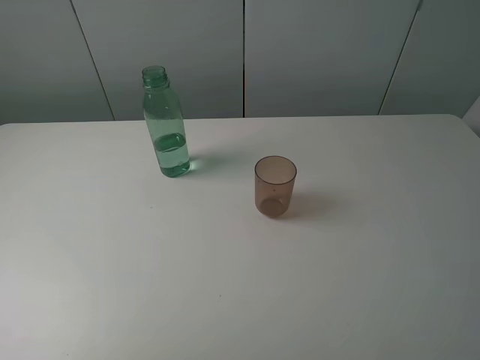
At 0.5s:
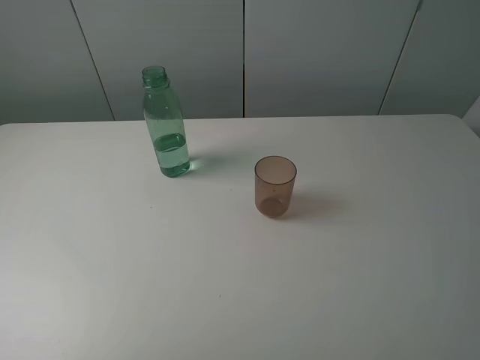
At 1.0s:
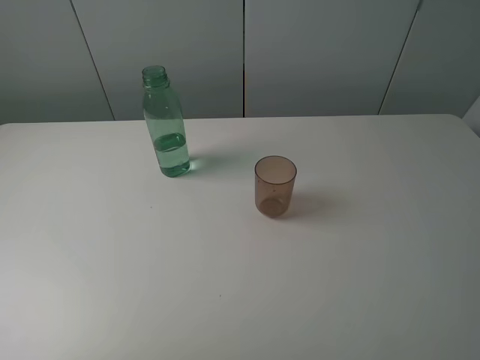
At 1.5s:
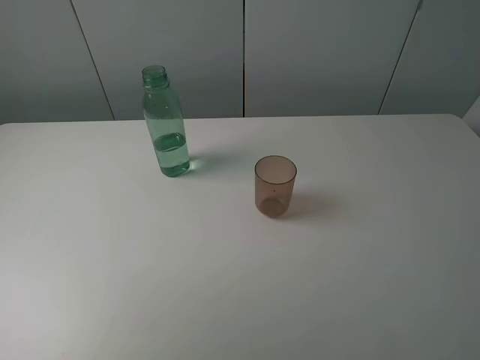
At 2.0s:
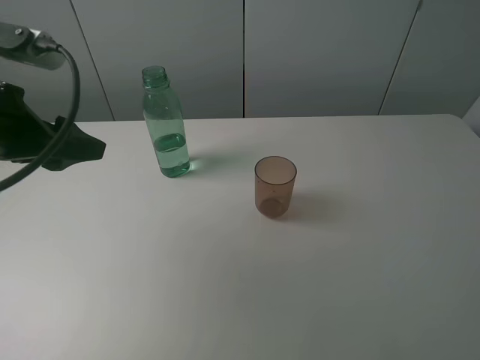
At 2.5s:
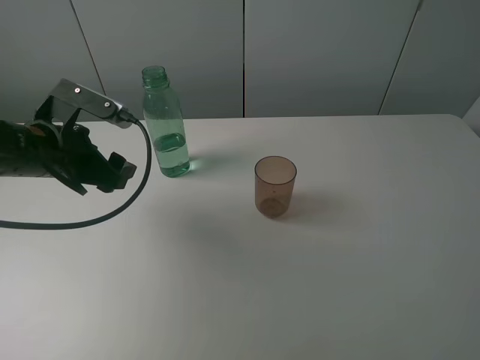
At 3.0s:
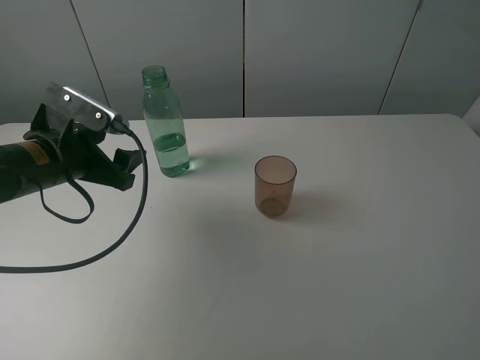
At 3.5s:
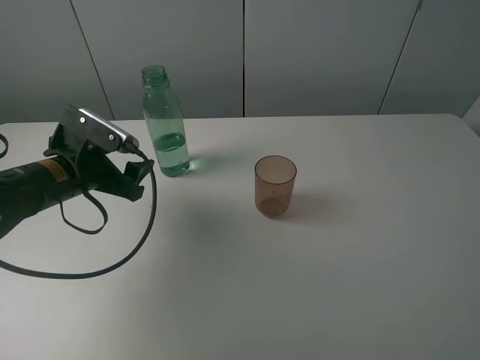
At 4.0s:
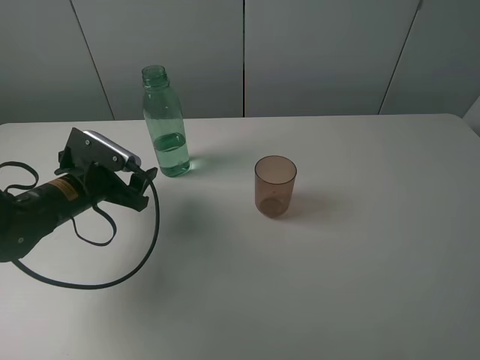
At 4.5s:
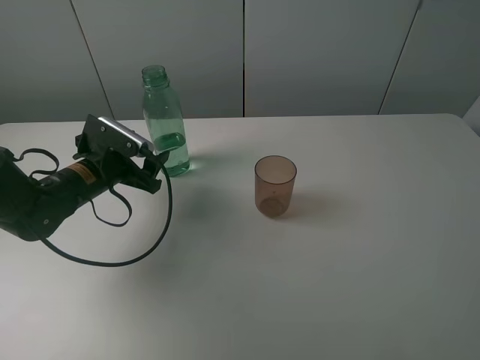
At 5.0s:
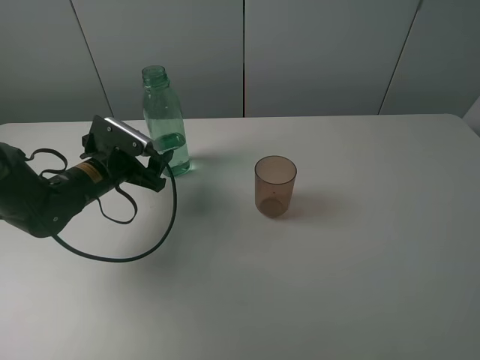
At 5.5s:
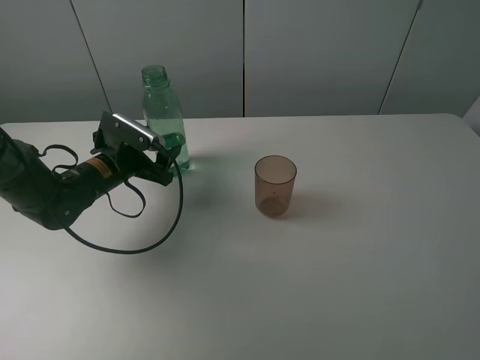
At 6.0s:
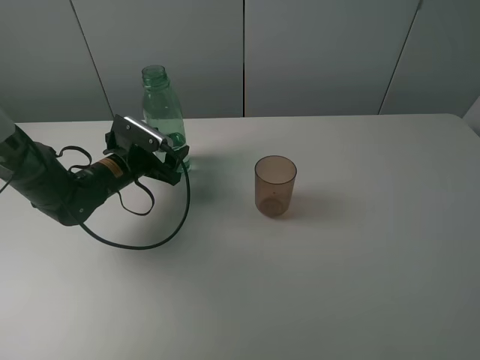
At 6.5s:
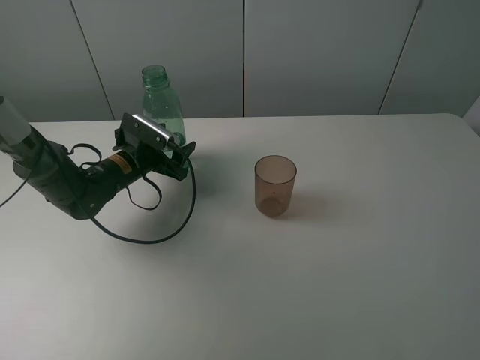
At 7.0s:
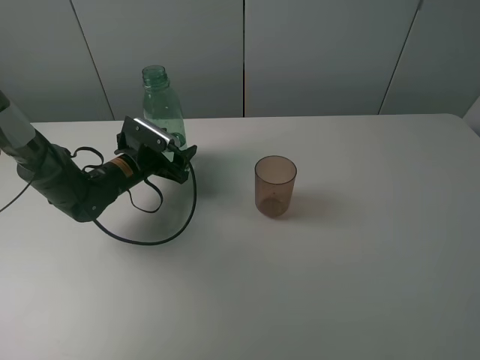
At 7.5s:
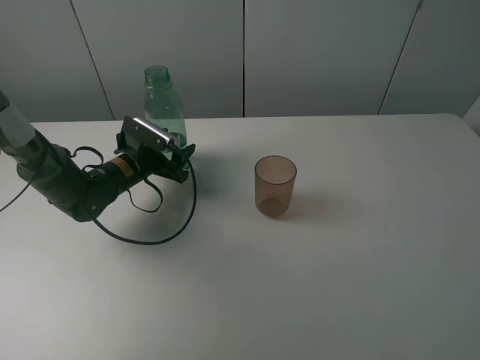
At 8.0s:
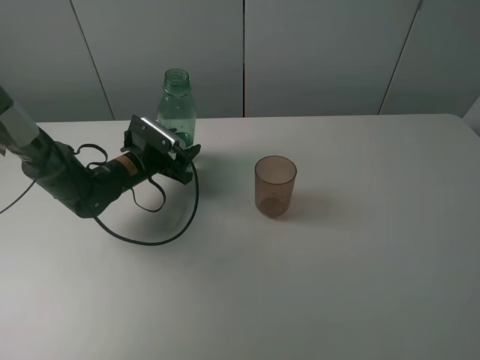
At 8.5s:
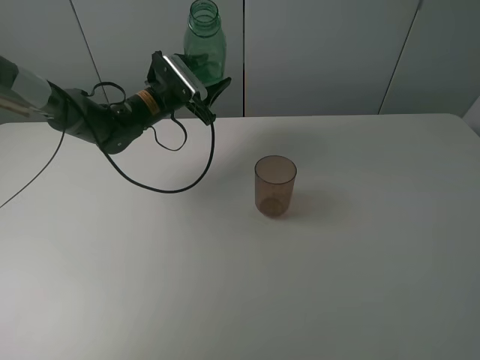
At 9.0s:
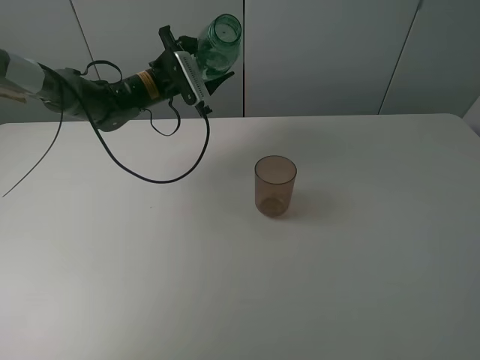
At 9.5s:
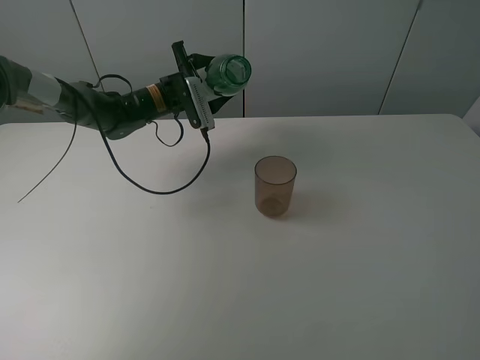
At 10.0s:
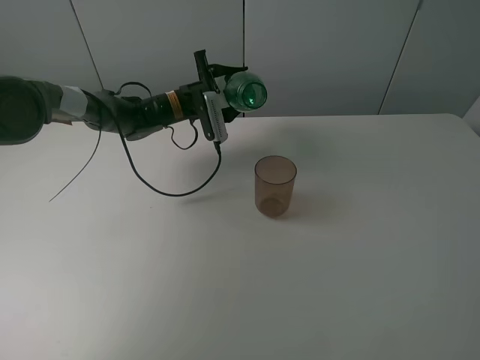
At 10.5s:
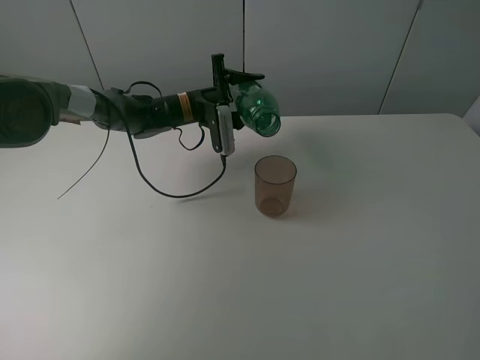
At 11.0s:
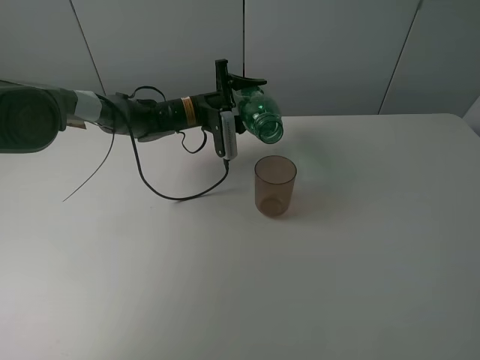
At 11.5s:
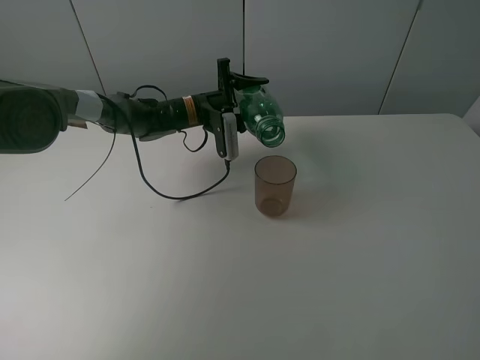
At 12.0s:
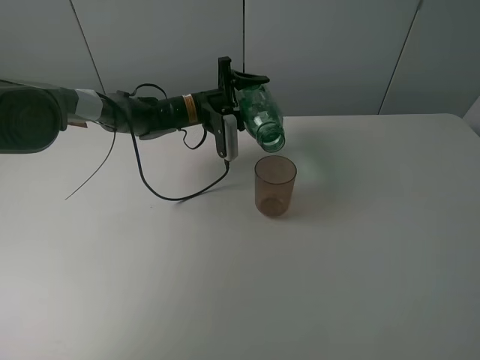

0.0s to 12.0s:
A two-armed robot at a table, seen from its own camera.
Task of the whole recording: pick up the bottle filled with water and pour it into the pink cup.
Step, 0.0s to 7.5s: Grasp the green bottle with the left gripper.
0.0s to 2.0s: The left gripper goes roughly 25 cm forward.
2.0s to 4.0s: The left gripper moves downward, roughly 15 cm.
4.0s to 6.0s: The left gripper heads forward, covering about 10 cm.
6.0s to 8.0s: The left gripper closes up.
8.0s to 10.0s: The left gripper shifts some 15 cm forward, to the right and upward.

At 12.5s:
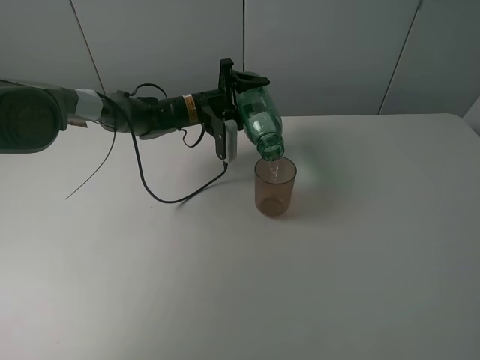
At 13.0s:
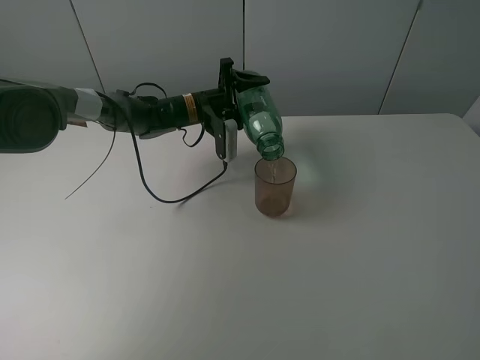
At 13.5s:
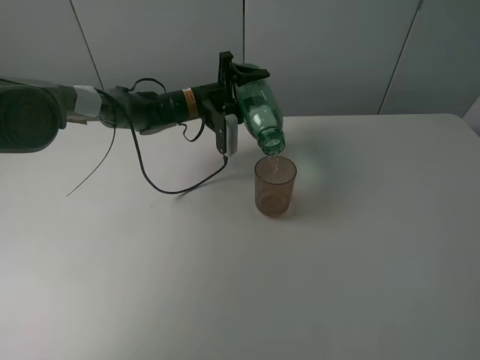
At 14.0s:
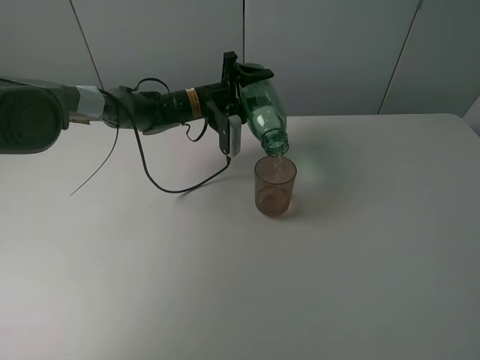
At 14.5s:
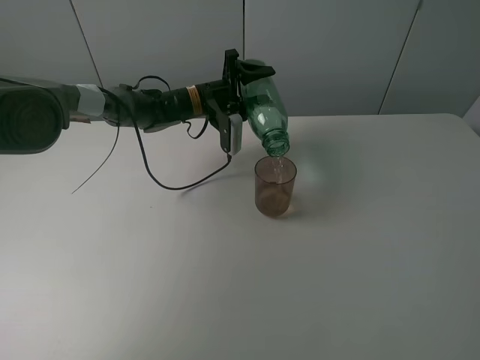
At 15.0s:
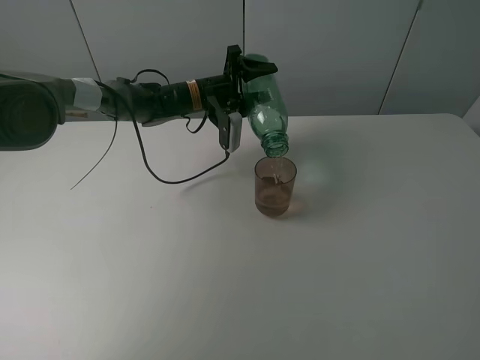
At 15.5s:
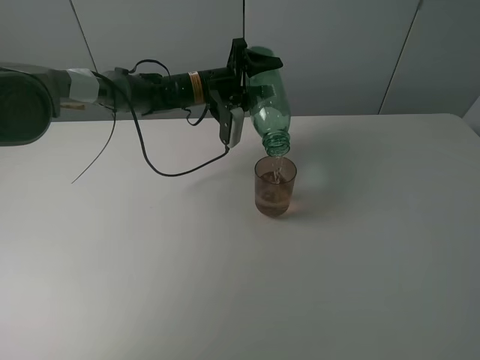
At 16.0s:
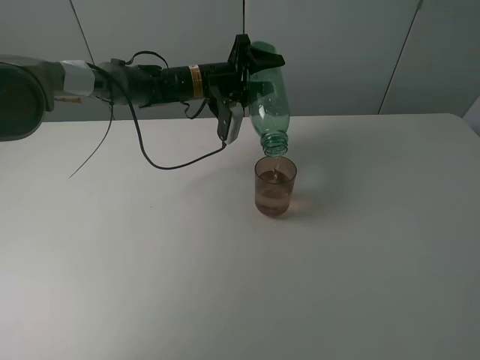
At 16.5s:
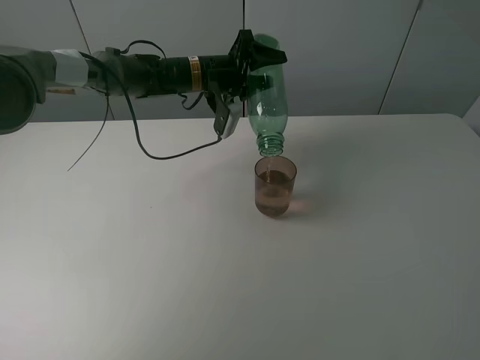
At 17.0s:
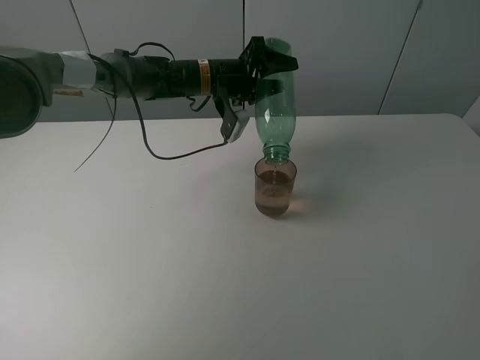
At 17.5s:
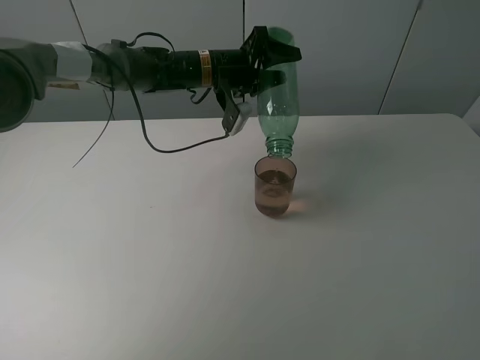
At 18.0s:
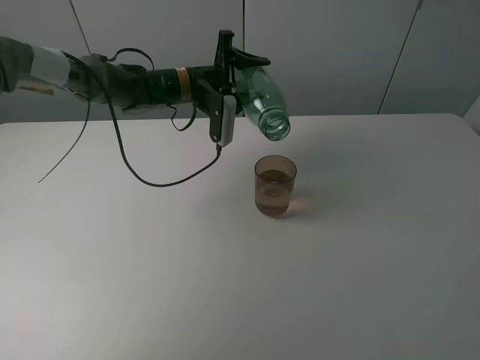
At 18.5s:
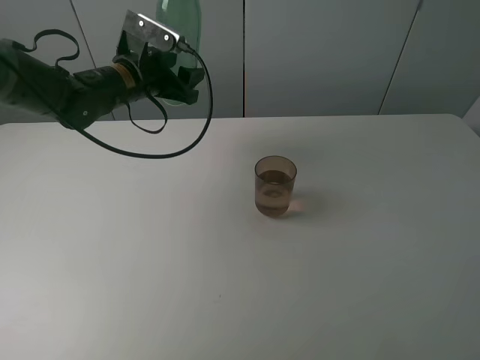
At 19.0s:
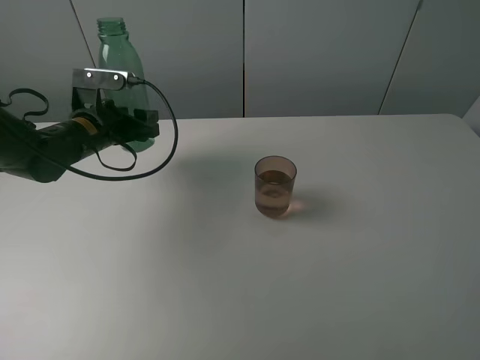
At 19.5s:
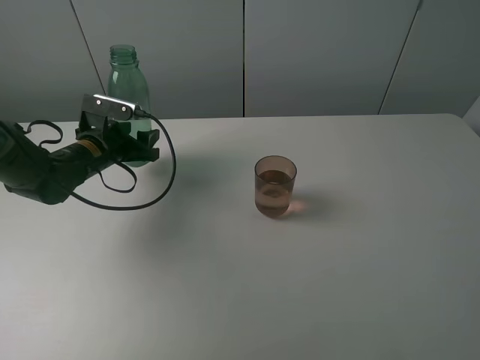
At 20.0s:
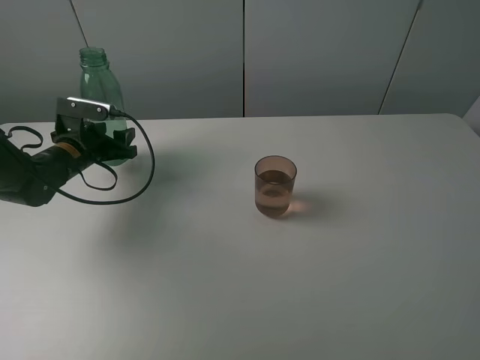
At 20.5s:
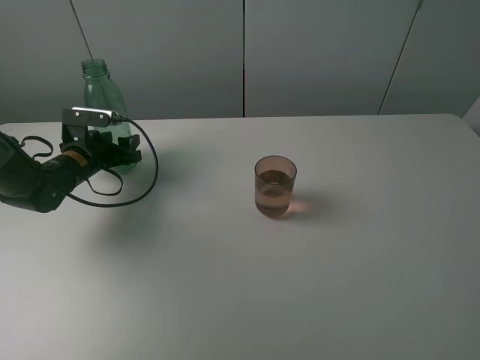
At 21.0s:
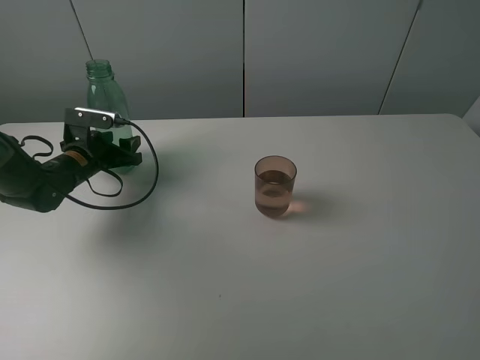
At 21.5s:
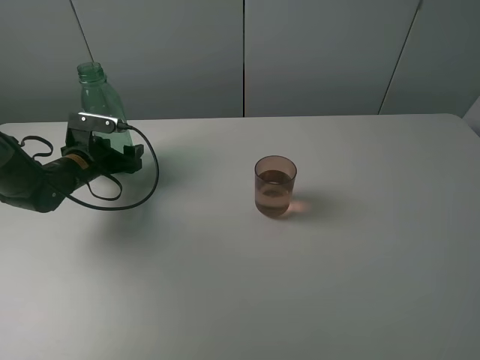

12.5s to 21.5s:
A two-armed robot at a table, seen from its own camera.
Task of the whole recording: pick up the bottle filled with water and pour it into the pink cup.
Step, 12.5s to 17.5s: Pour water from green bottle to pink cup with the left gripper.
12.5s to 14.5s: There are only small adjustments of the grippers.
14.5s to 17.0s: The left gripper shifts about 5 cm upward.
17.0s to 19.5s: The left gripper is displaced to the left, backward and downward by roughly 25 cm.
19.5s to 21.5s: The left gripper moves about 5 cm, and opens up.

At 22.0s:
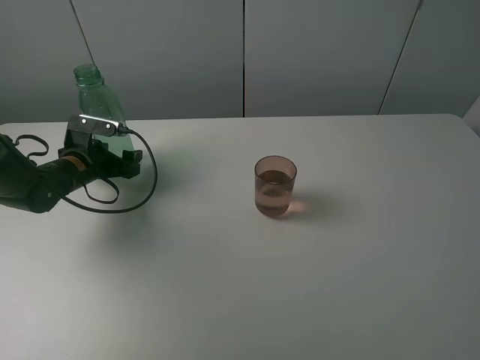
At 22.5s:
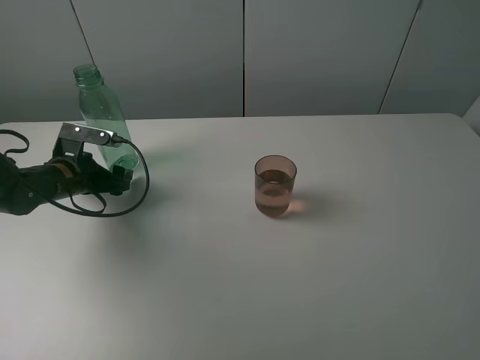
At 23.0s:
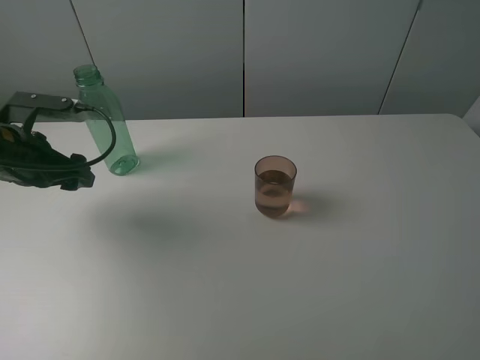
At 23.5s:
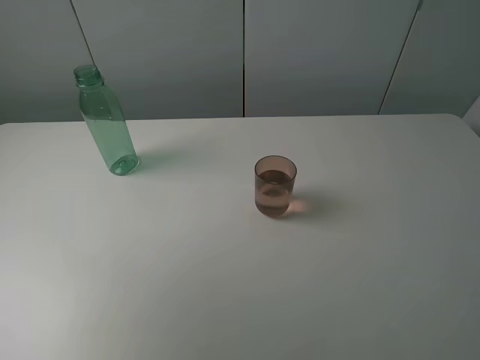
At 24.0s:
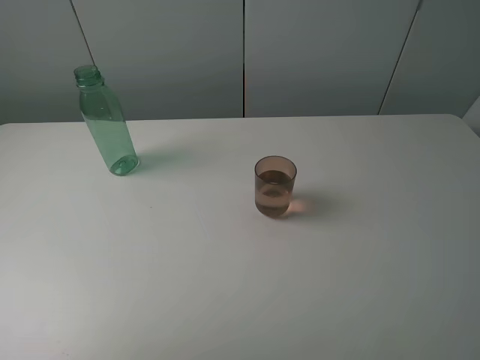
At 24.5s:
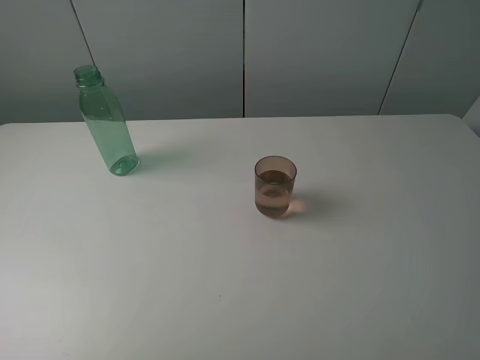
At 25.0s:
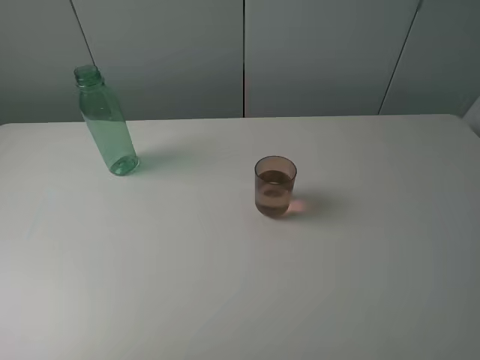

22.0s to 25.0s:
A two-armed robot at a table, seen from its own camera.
Task of the whole recording: pick up the bottle filled with water and pour it into the pink cup.
22.0s to 23.5s: The left gripper moves upward and backward, about 35 cm.
23.5s to 25.0s: The left gripper moves backward, about 15 cm.

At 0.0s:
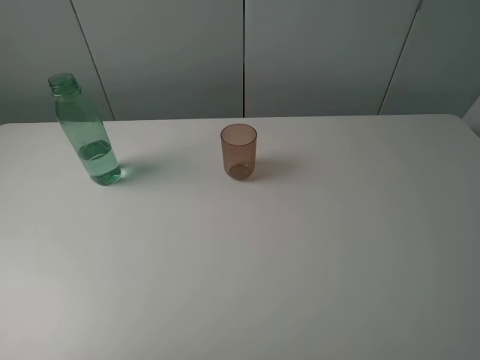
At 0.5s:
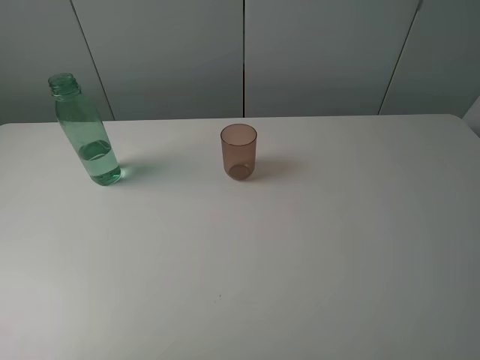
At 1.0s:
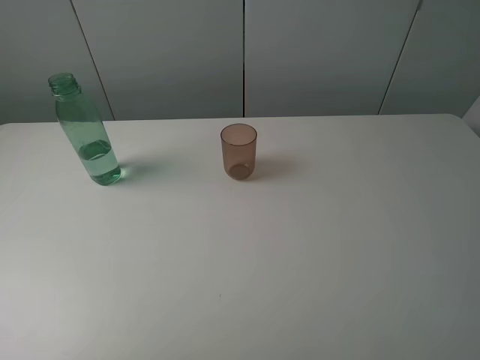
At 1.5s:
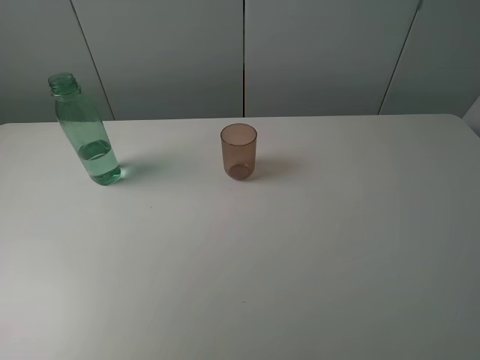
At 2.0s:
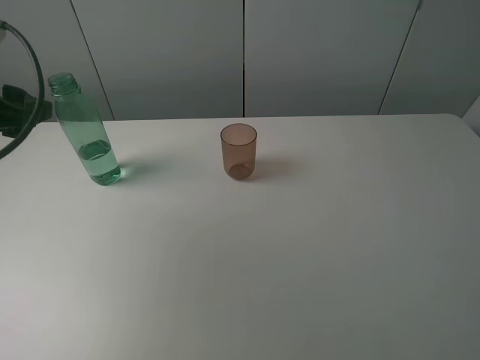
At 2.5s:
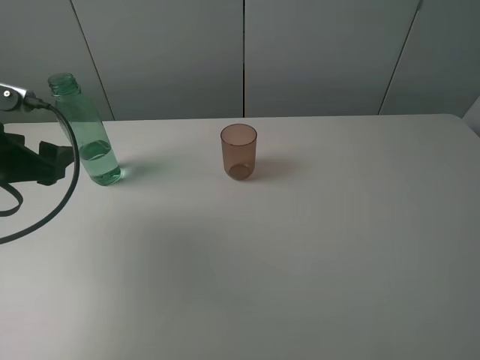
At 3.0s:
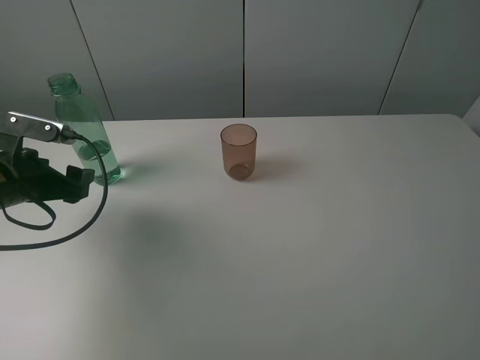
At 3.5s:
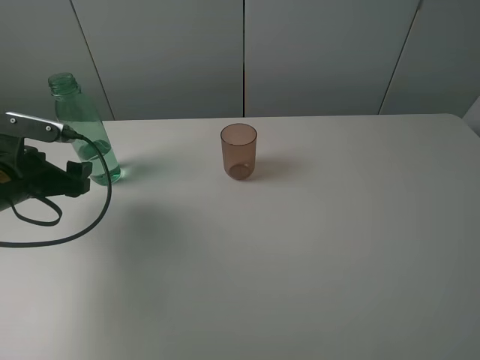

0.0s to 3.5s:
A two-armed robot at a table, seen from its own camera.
Task of the whole recording: pick up the bottle filled with water and pour it into the pink cup.
0.0s to 2.0s: The left gripper moves forward, approximately 25 cm.
2.0s to 3.5s: The left gripper travels downward by about 15 cm, and opens its fingers.
